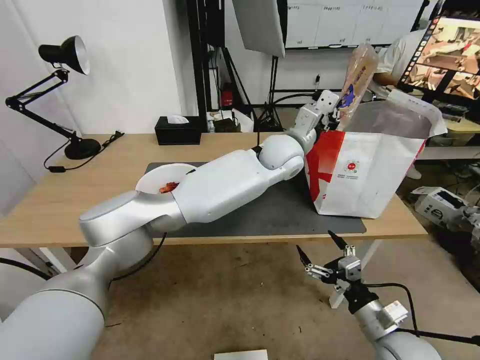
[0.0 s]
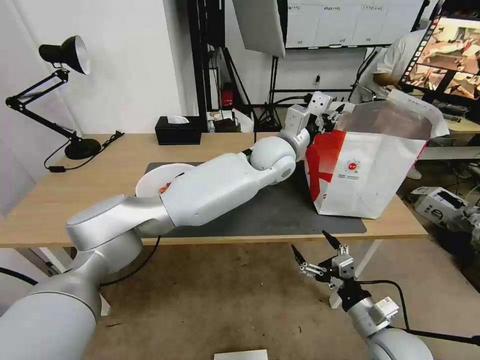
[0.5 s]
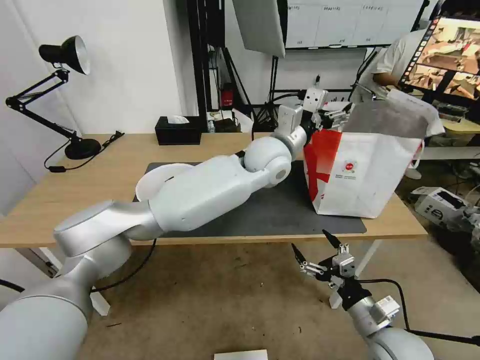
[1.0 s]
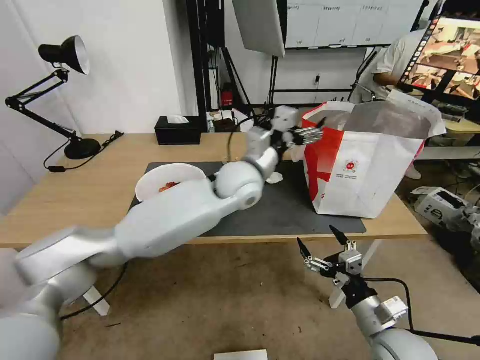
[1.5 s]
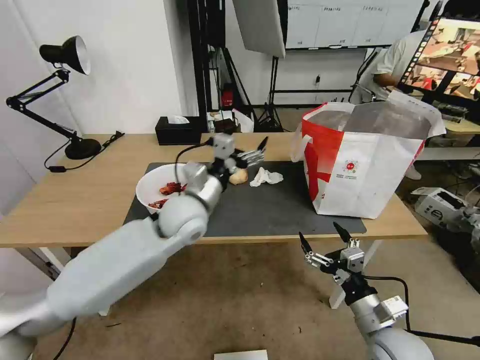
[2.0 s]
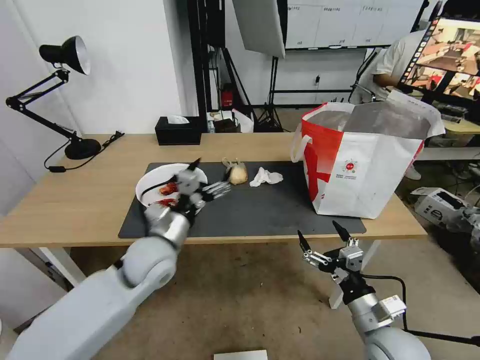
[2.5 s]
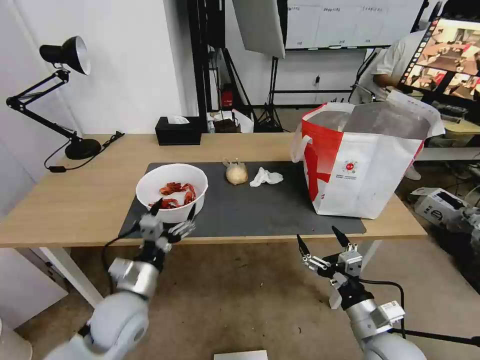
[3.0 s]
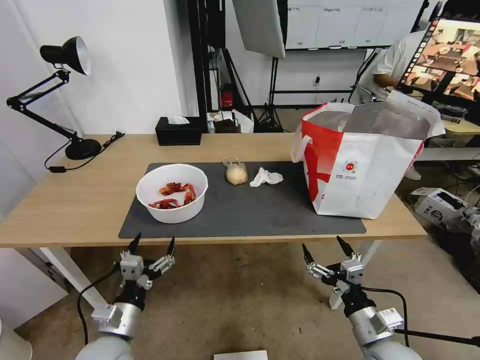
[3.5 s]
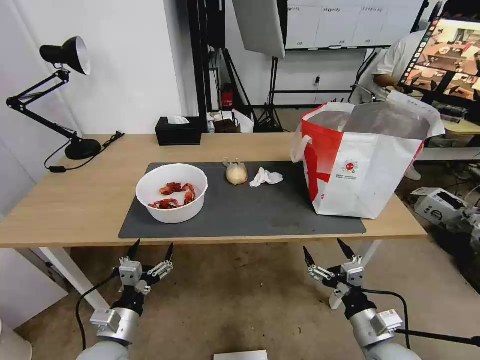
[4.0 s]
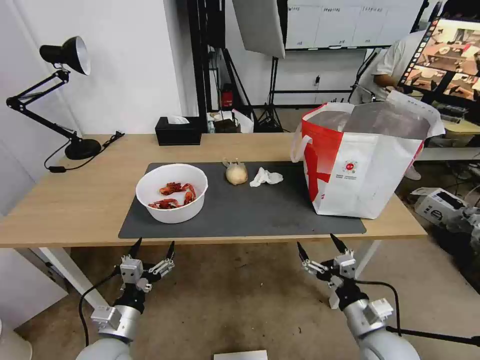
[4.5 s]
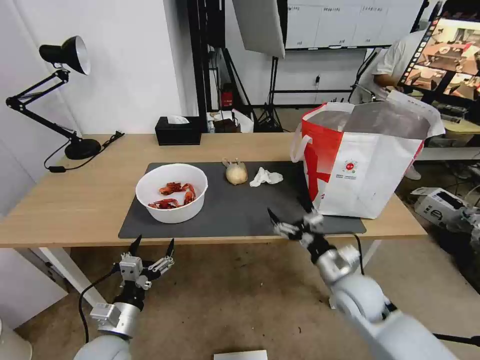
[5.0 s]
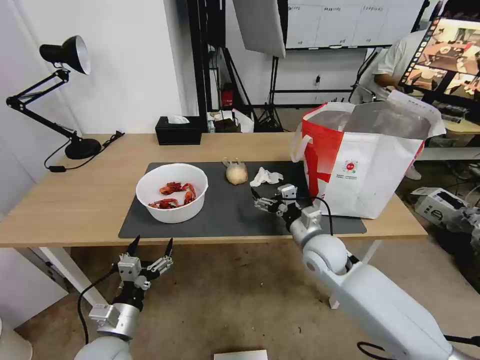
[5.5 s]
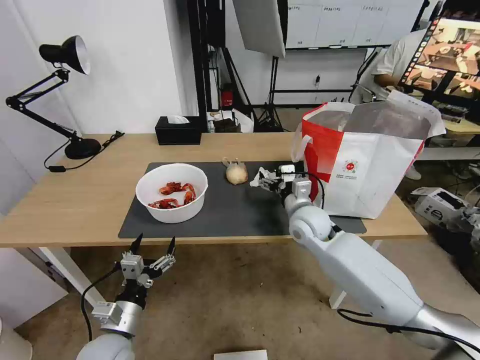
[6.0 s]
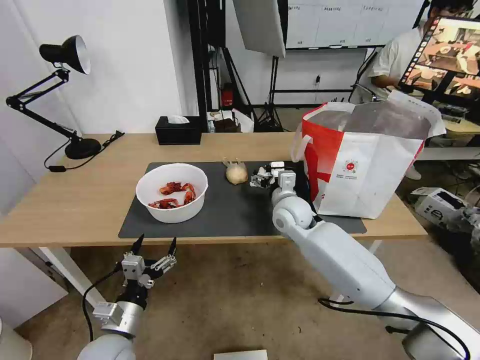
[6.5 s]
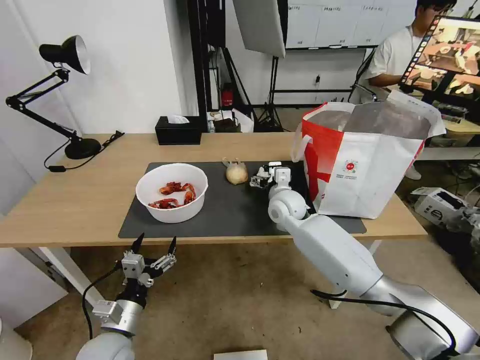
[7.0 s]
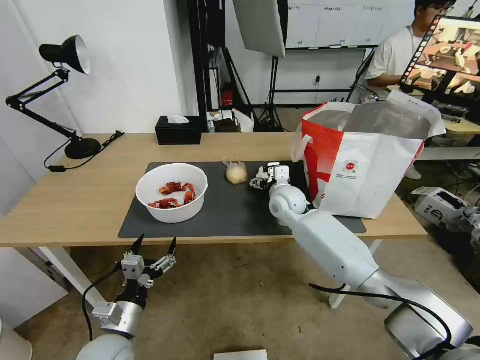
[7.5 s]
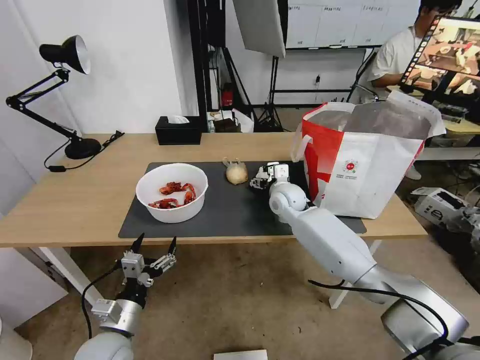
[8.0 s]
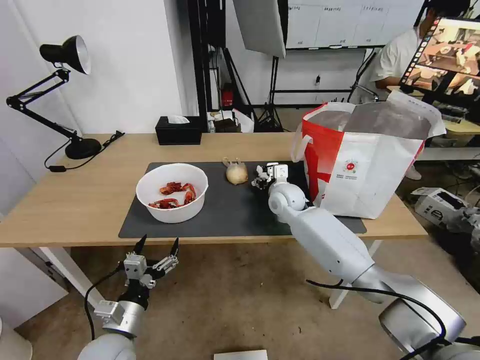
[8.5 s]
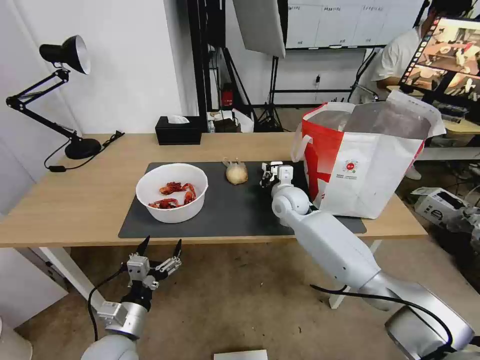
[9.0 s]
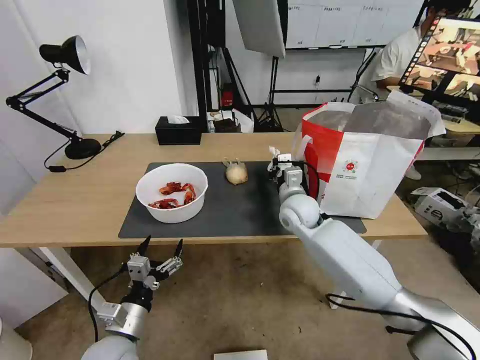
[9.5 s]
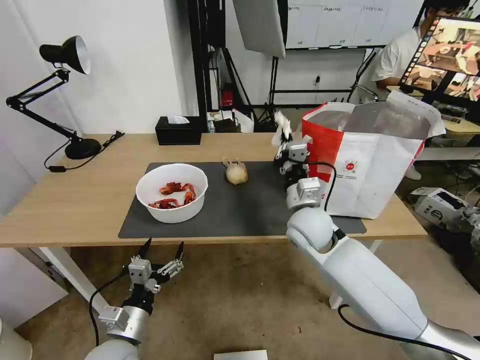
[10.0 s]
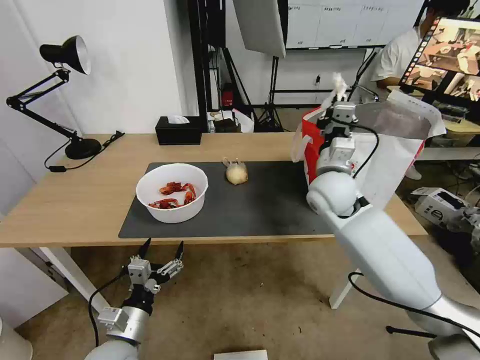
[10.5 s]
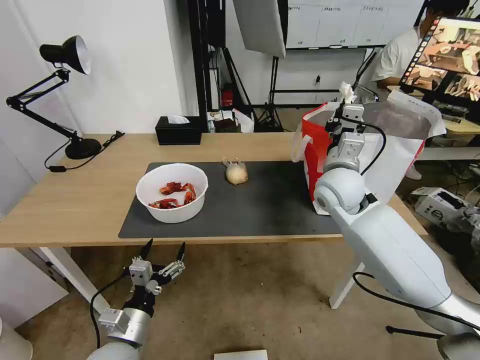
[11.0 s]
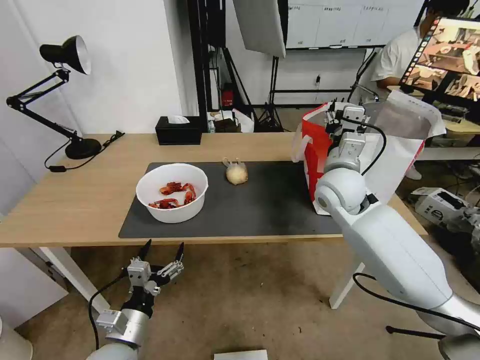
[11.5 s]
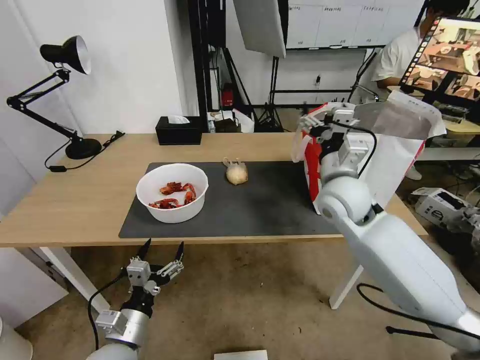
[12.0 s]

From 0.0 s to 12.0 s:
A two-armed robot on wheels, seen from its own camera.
Task of the whole recording: Pick up the trash from the table and place it into the takeout bag.
From 0.0 s to 2.0 s: The left gripper travels to the left and backward by some 25 cm, and opens its fingers.
From 2.0 s to 4.0 s: The left gripper heads backward, downward and to the left, covering approximately 35 cm.
From 4.0 s to 6.0 s: The right gripper travels forward and to the left by about 30 cm.
From 6.0 s to 8.0 s: The right gripper heads forward, covering about 10 cm.
From 8.0 s to 10.0 s: The right gripper heads backward and upward, covering roughly 15 cm, and closes.
From 10.0 s to 12.0 s: The right gripper moves upward and to the right, approximately 10 cm, and opens its fingers.

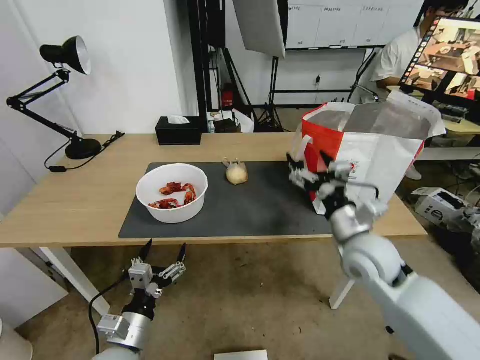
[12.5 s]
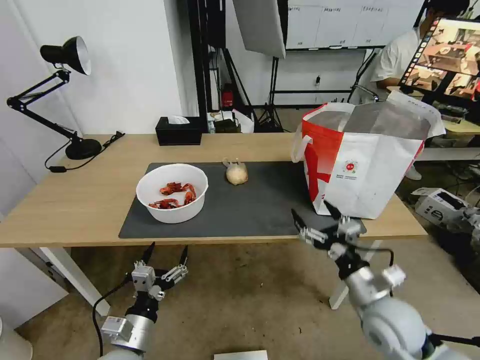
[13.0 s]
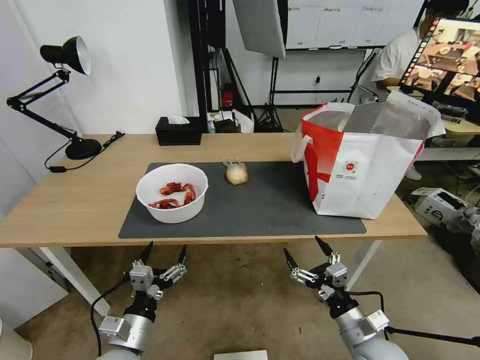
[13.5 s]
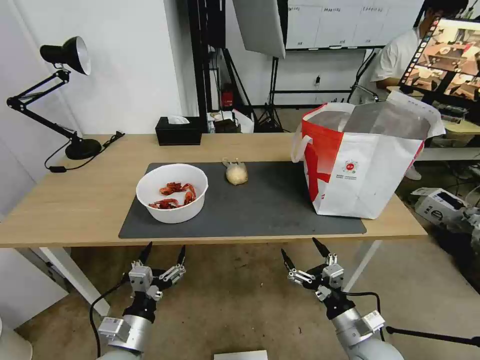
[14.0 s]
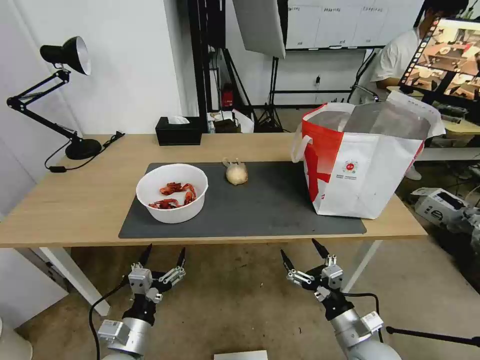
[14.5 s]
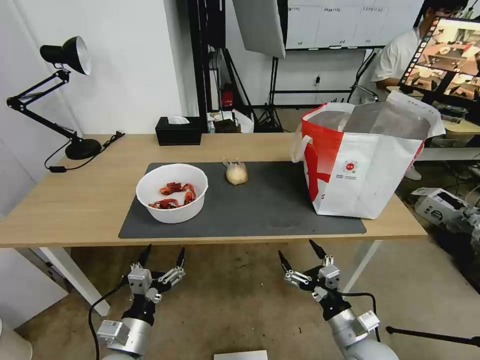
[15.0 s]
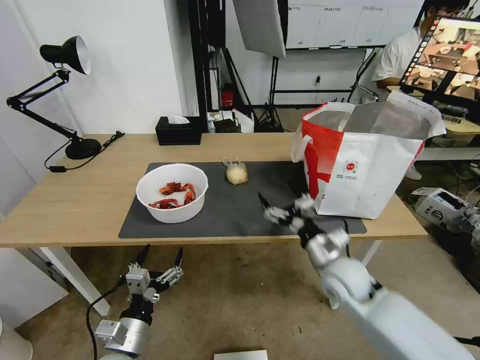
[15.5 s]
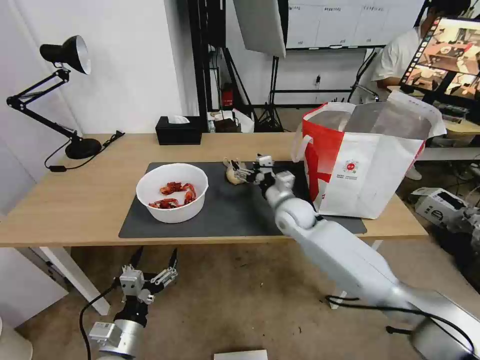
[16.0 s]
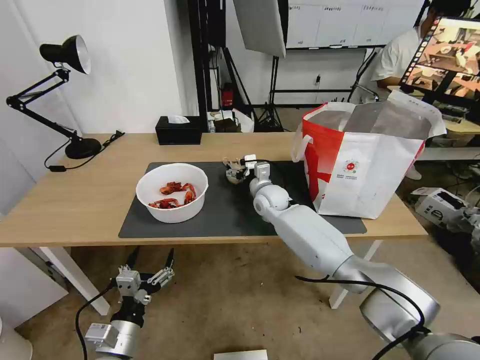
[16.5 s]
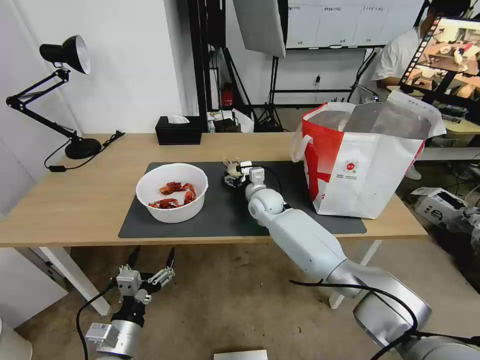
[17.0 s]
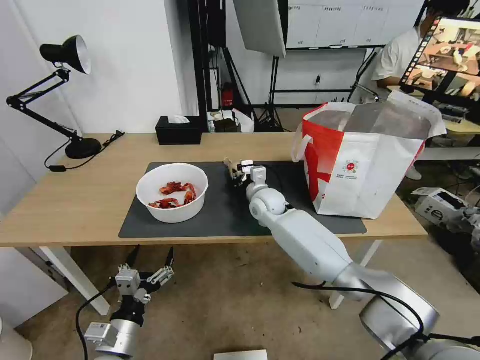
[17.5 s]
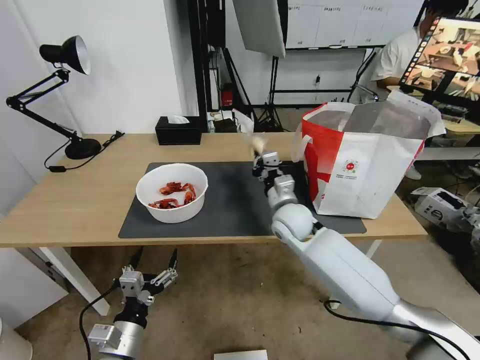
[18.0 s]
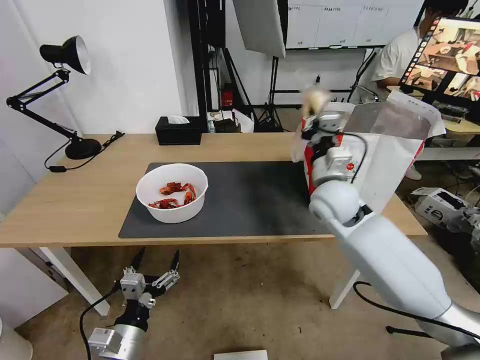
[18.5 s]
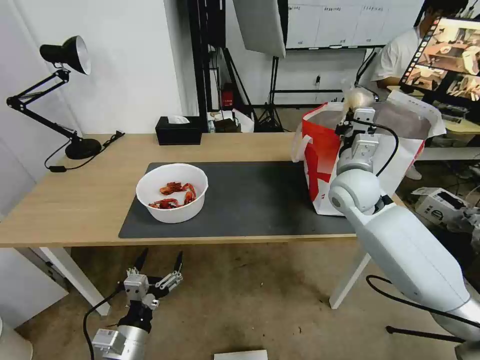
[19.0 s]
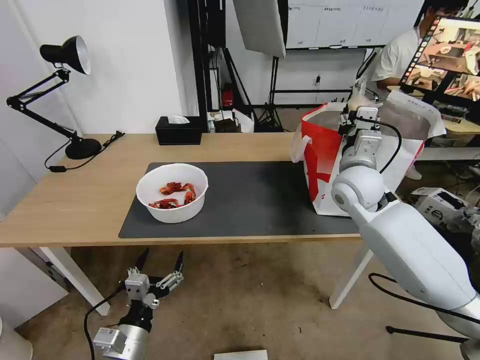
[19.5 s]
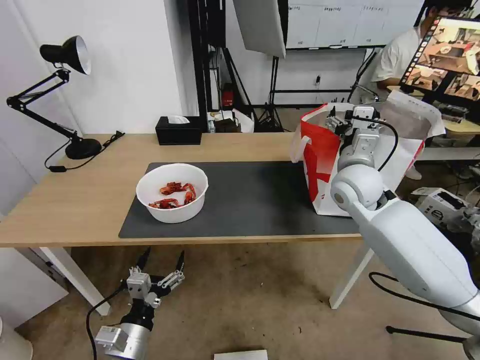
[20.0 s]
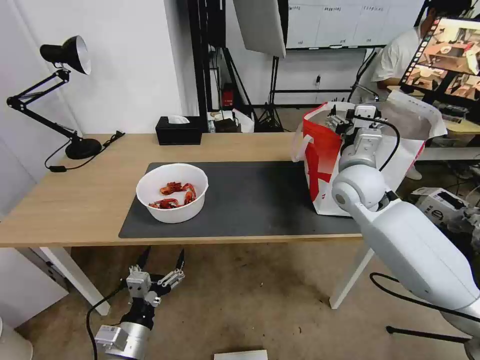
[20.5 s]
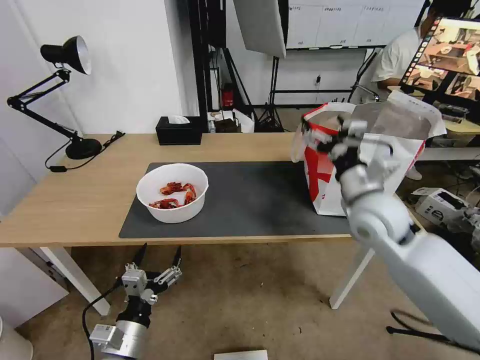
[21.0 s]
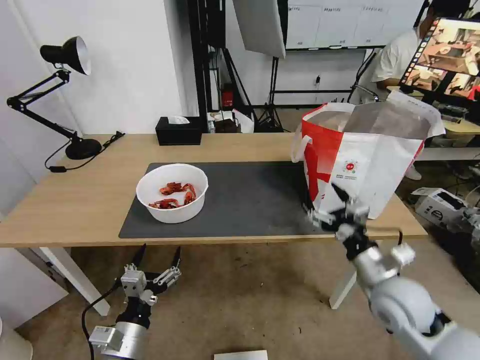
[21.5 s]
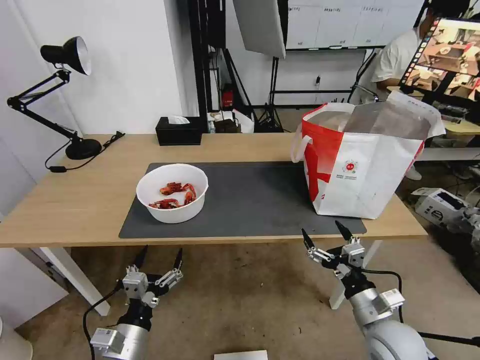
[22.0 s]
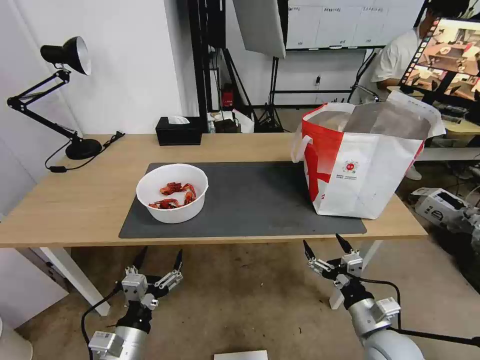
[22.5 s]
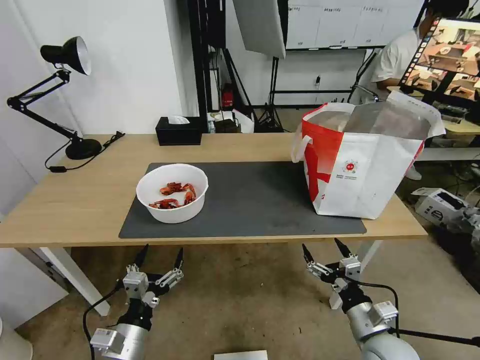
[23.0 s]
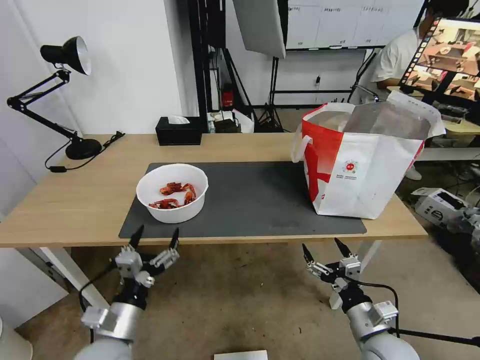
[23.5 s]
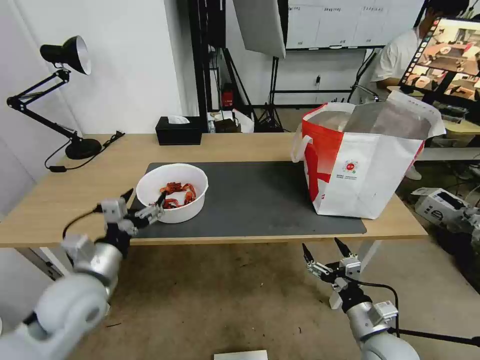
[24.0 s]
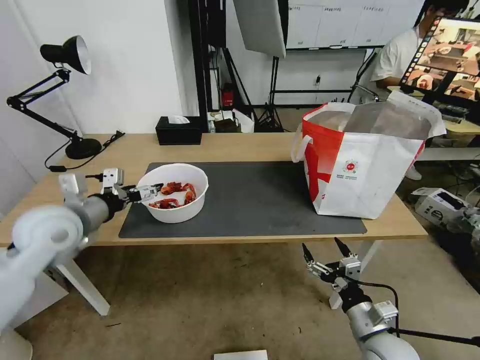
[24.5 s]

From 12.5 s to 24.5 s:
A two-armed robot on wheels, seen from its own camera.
Task of the whole recording: Pick up the trash from the table and place it into the takeout bag.
From 12.5 s to 14.5 s: The right gripper is displaced downward and backward by roughly 20 cm.
From 14.5 s to 16.5 s: The right gripper heads forward and to the left, covering about 40 cm.
From 16.5 s to 18.5 s: The right gripper heads upward, backward and to the right, covering about 20 cm, and closes up.
From 18.5 s to 20.5 s: The right gripper moves approximately 5 cm, and opens its fingers.
From 20.5 s to 22.5 s: The right gripper goes roughly 35 cm backward and downward.
From 22.5 s to 24.5 s: The left gripper shifts approximately 30 cm forward, upward and to the left.

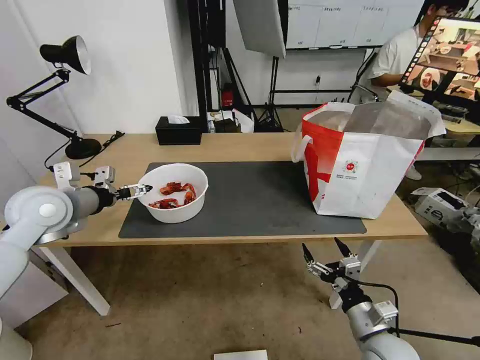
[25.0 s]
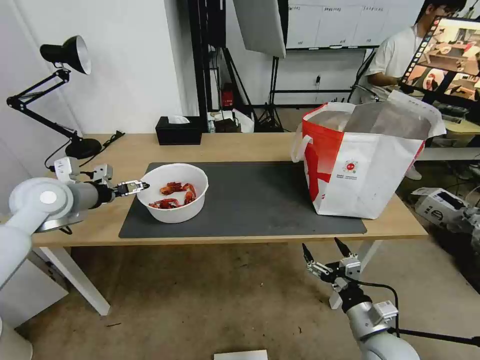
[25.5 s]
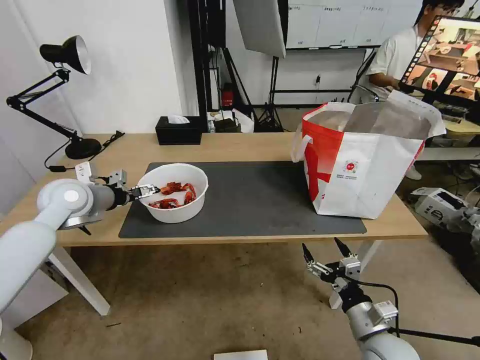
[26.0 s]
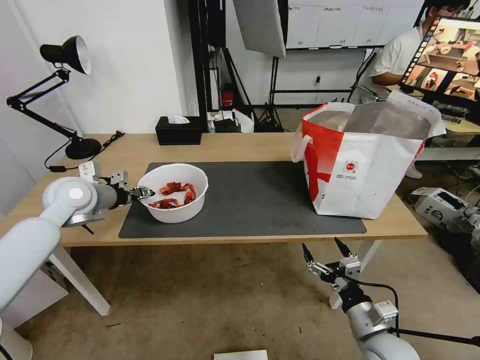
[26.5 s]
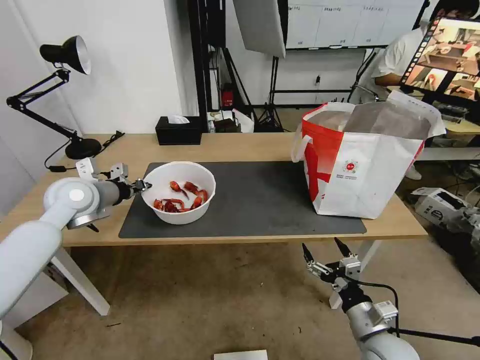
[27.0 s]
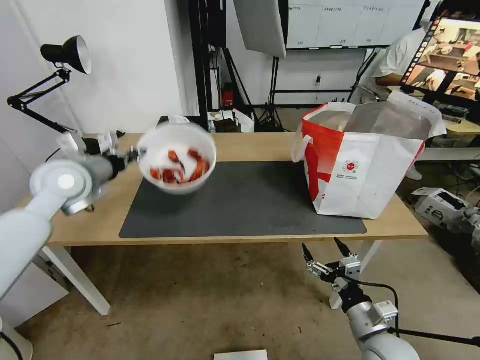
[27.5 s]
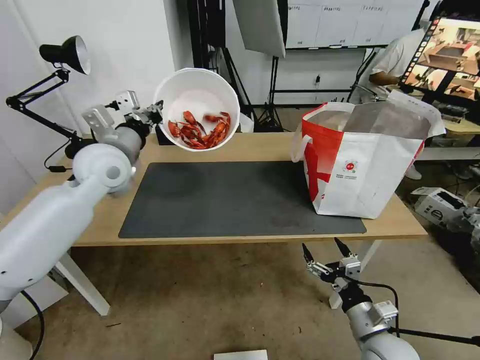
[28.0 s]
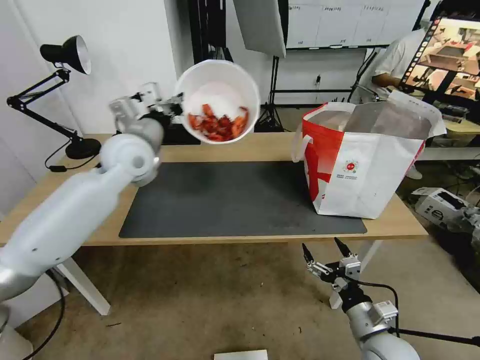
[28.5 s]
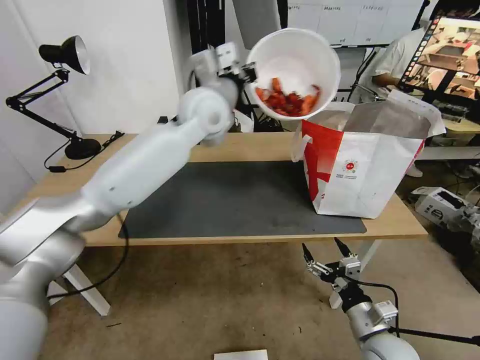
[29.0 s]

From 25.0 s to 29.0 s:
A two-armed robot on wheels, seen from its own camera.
Task of the whole recording: Pick up the trash from the table and place it into the takeout bag.
From 25.0 s to 27.0 s: The left gripper shifts approximately 5 cm forward, and closes its fingers.
From 27.0 s to 29.0 s: The left gripper heads to the right and upward, covering some 30 cm.
